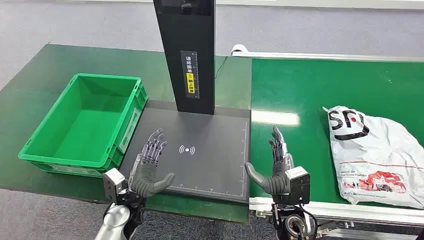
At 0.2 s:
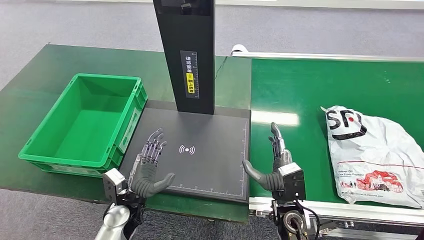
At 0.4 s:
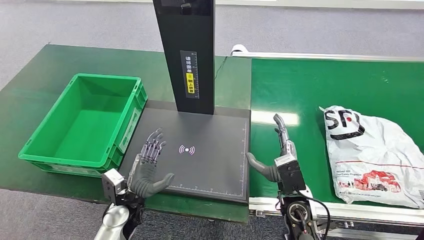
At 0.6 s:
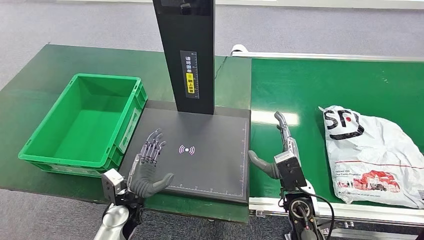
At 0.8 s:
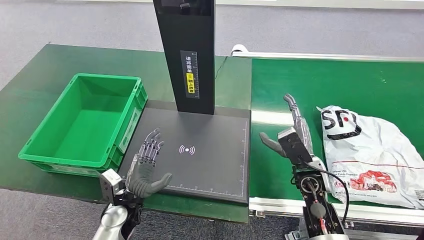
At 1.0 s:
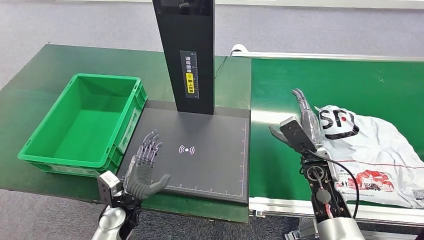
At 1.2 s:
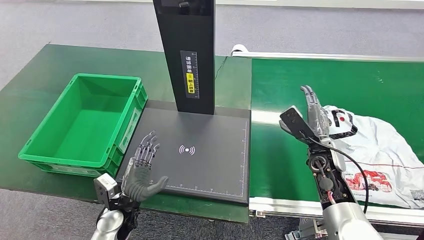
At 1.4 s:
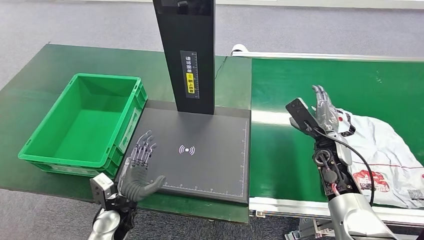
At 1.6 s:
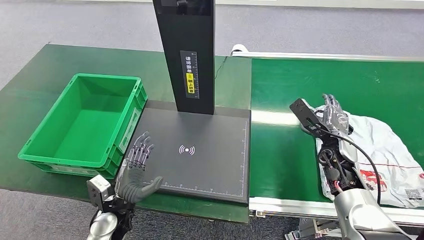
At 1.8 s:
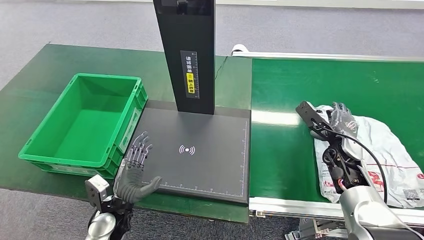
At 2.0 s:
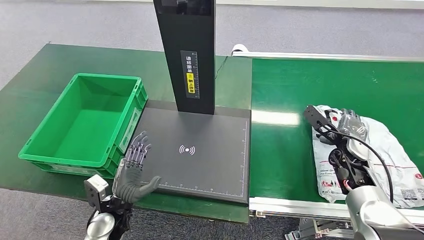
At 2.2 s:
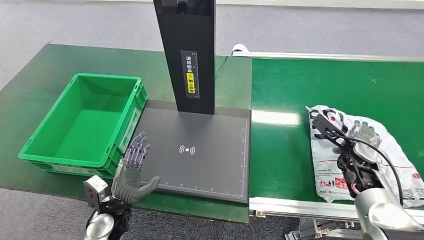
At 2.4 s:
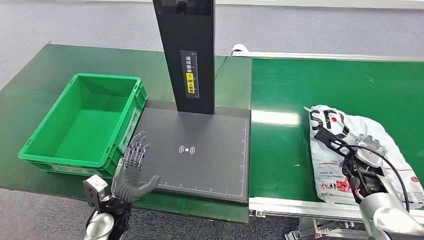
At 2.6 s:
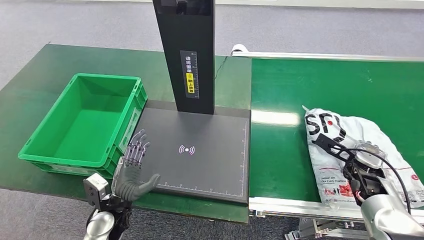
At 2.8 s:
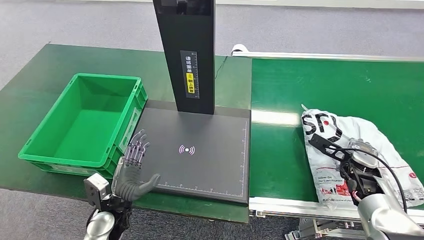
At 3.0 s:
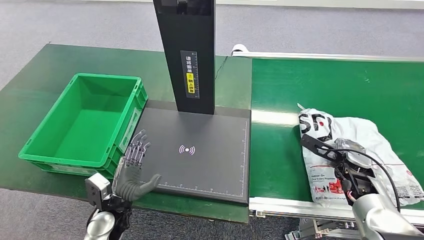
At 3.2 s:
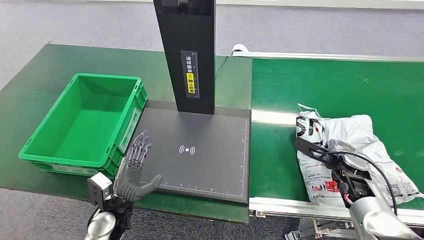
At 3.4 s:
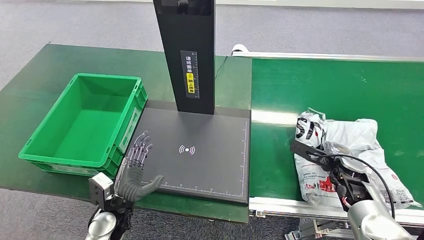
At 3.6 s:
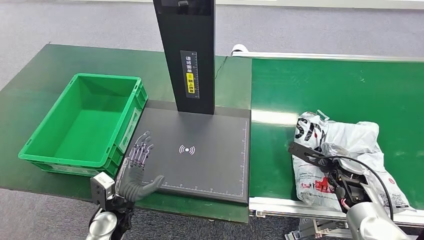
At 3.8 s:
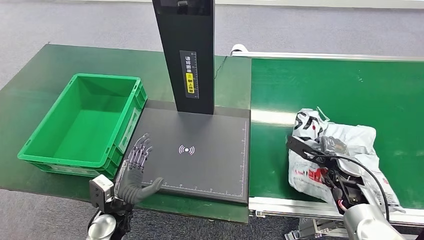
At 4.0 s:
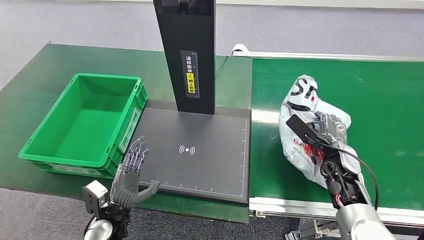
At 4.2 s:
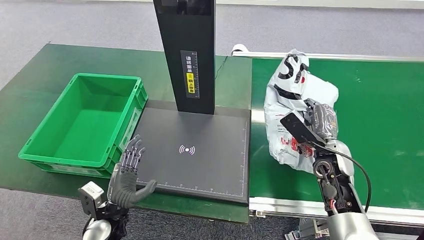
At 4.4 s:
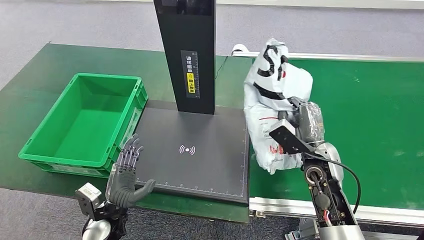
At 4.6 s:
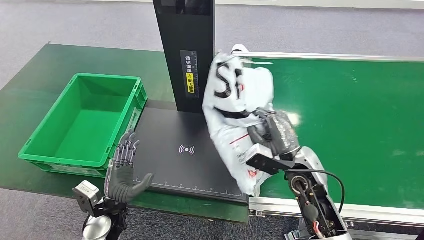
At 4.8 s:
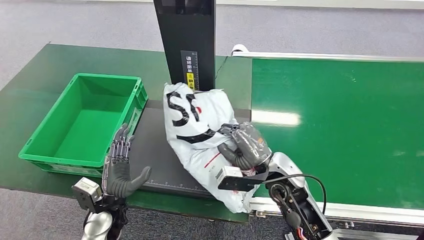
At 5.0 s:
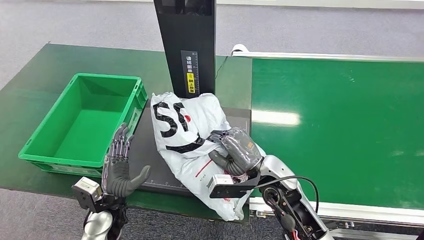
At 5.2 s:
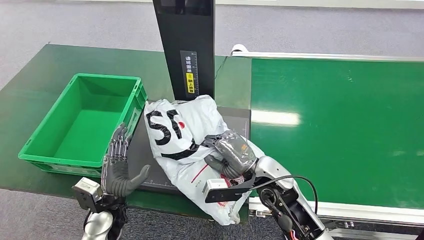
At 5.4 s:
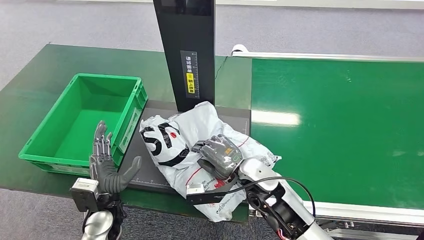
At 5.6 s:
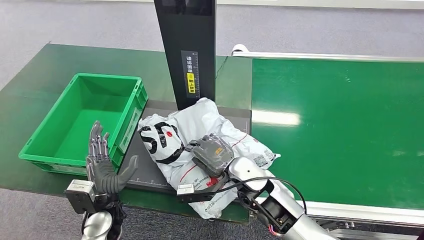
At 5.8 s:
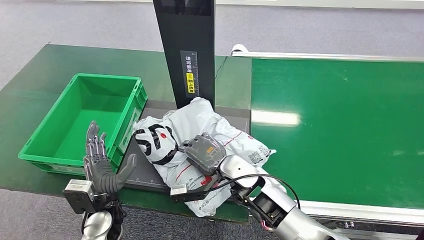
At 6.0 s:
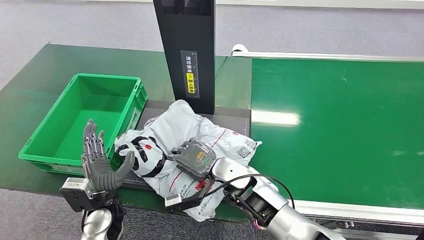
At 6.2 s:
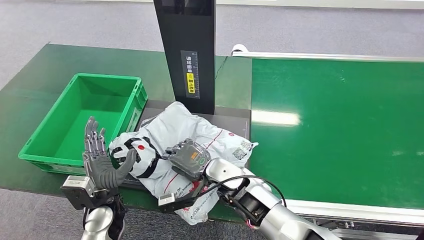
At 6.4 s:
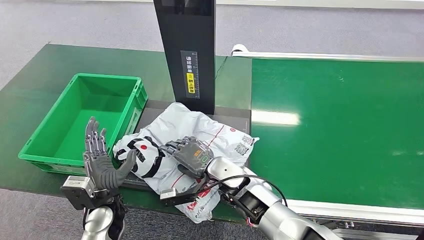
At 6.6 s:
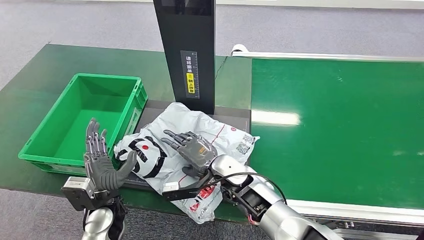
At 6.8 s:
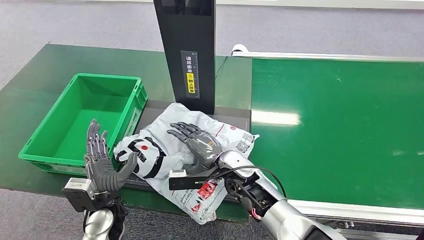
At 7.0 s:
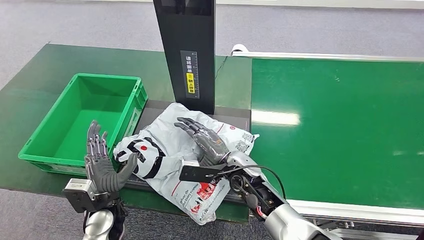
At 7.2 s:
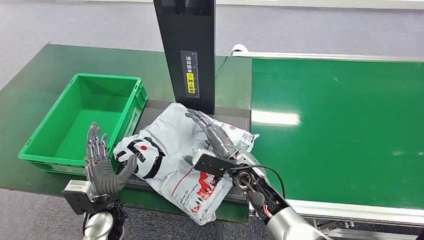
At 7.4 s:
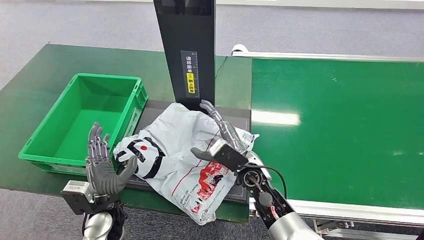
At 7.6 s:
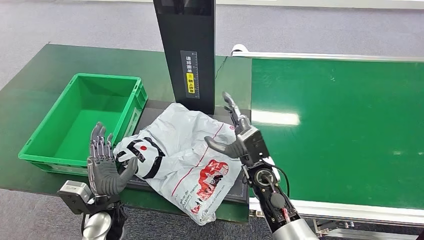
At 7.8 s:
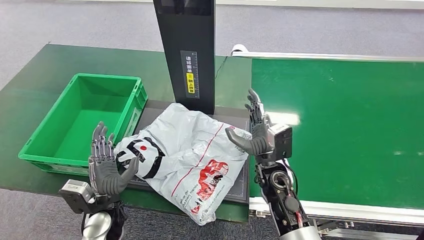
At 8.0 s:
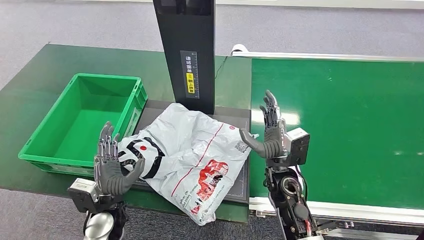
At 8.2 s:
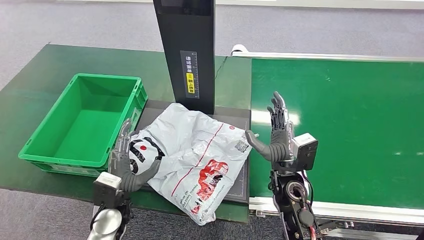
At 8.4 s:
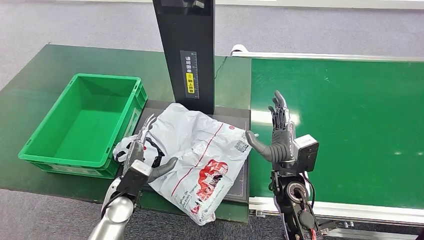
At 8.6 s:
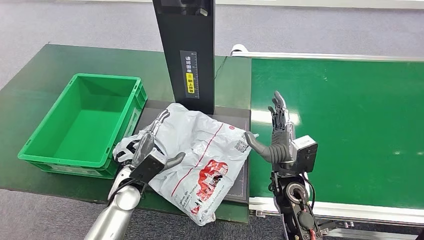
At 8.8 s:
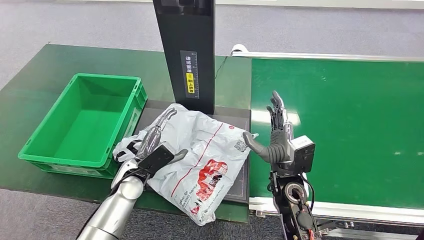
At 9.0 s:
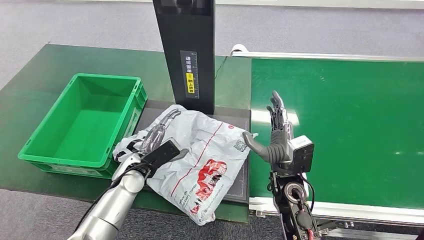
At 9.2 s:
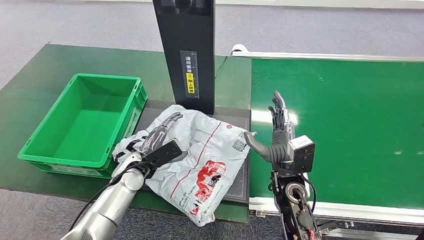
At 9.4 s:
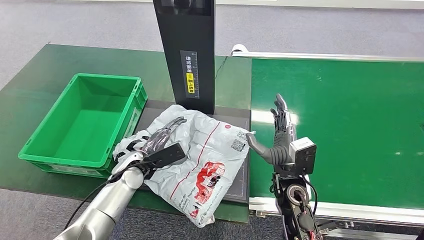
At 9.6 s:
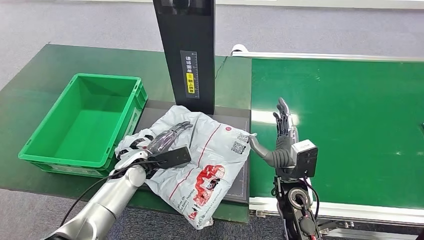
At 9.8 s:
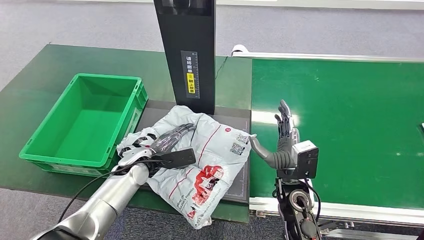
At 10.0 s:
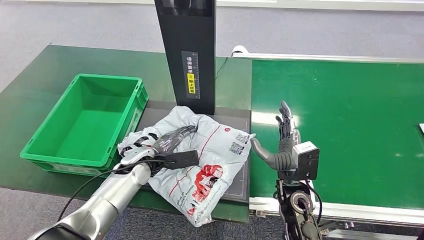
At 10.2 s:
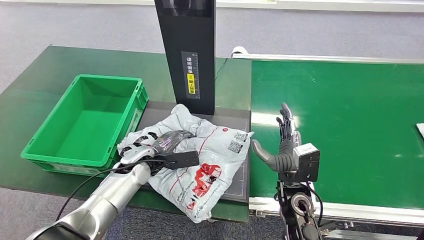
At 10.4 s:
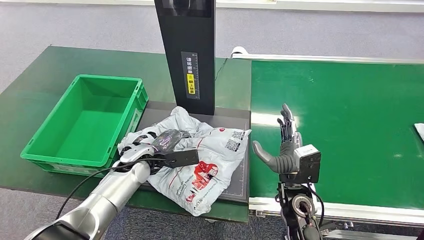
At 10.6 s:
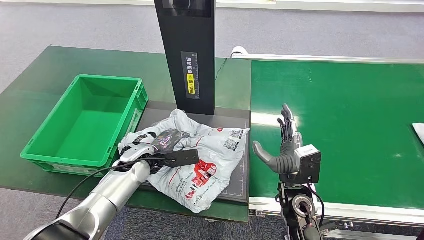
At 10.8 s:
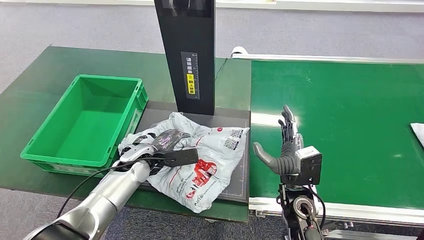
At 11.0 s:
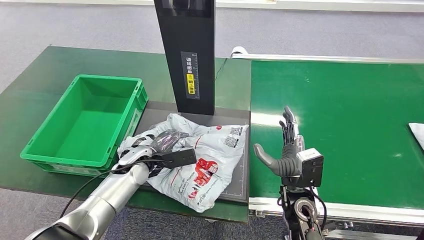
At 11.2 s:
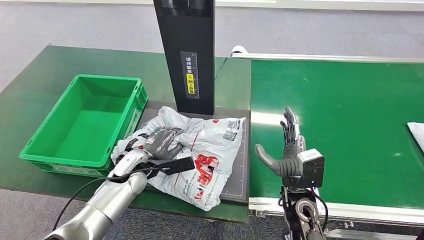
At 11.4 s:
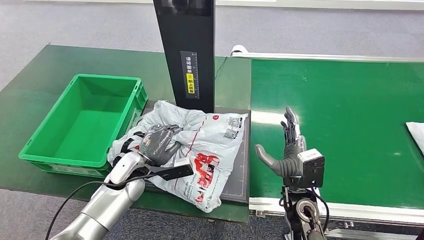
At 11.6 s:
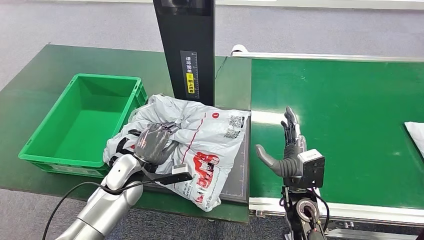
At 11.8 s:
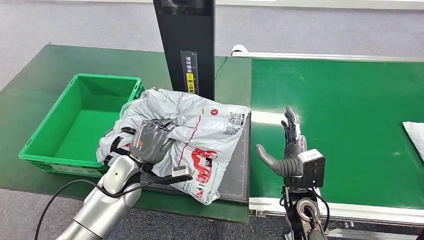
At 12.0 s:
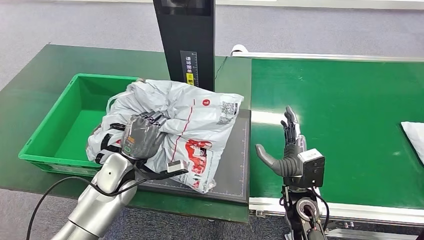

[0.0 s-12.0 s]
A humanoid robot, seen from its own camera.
Step, 0.0 to 4.2 s: Pick up the package from the conveyor belt.
Step, 4.4 to 7.2 s: Place the package onto the inbound machine.
1.6 to 3.0 s: The right hand goes roughly 5 cm to the right.
7.6 to 9.0 s: The right hand heads to the right, covering roughly 5 cm; the left hand shifts some 10 cm forward.

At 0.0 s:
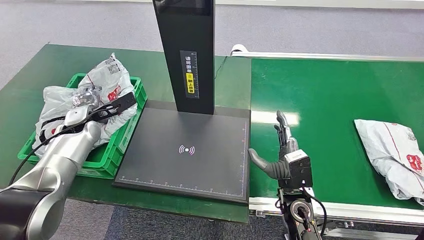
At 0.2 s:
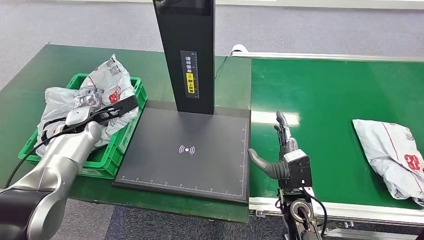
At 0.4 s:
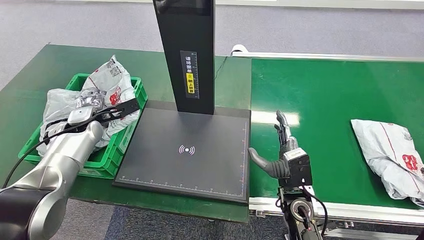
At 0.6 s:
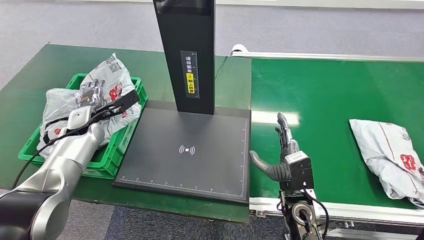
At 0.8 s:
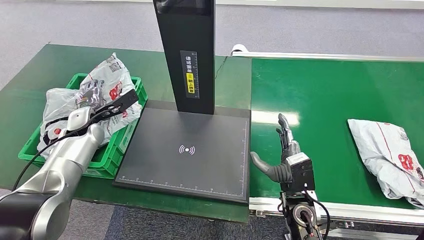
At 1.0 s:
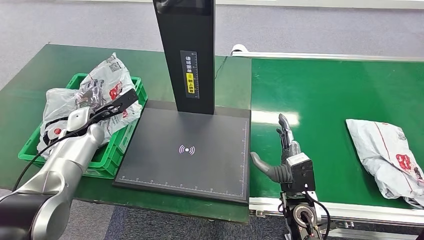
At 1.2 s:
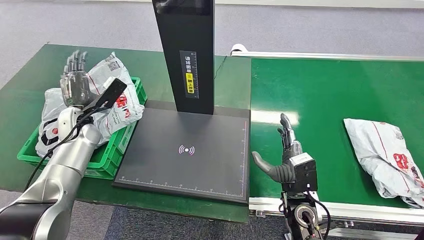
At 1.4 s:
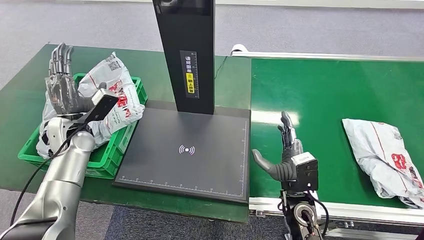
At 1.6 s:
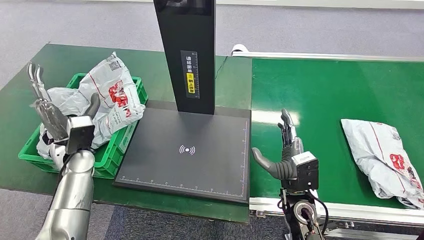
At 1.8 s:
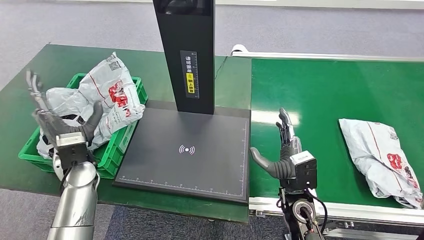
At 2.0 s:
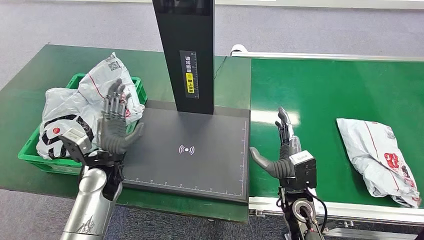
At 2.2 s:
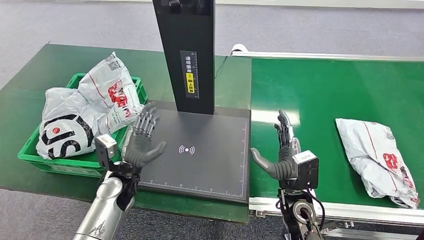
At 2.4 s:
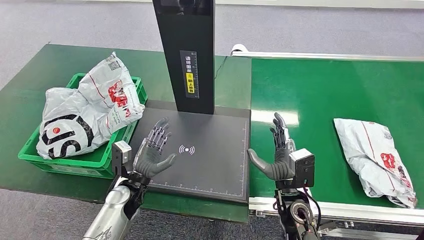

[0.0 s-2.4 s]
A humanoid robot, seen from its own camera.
Step, 0.0 to 2.4 s: Place the package into the parcel locker.
1.2 to 2.4 s: The left hand is displaced to the right, backward and downward by about 25 cm.
